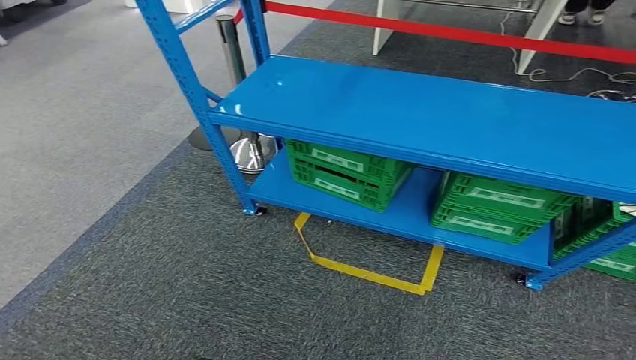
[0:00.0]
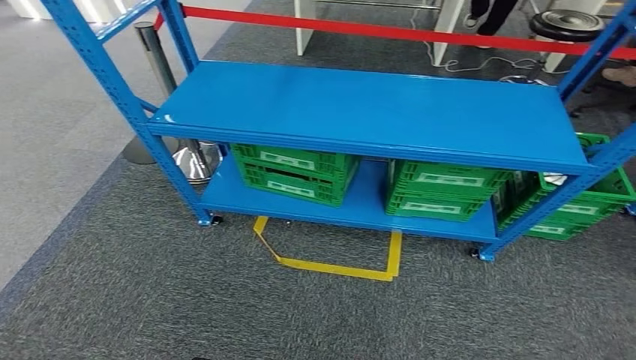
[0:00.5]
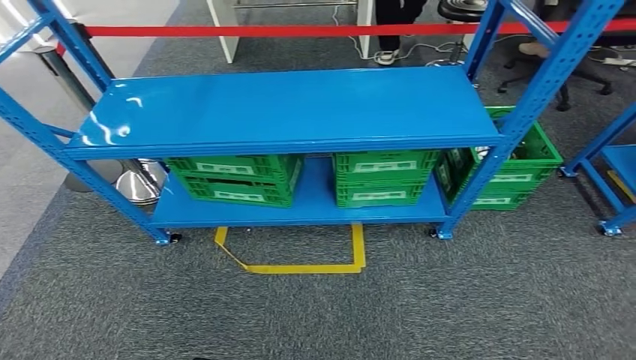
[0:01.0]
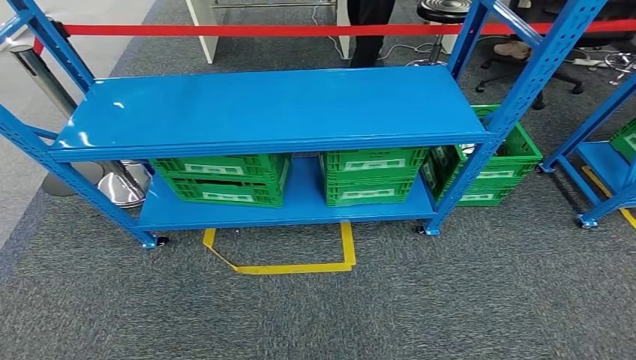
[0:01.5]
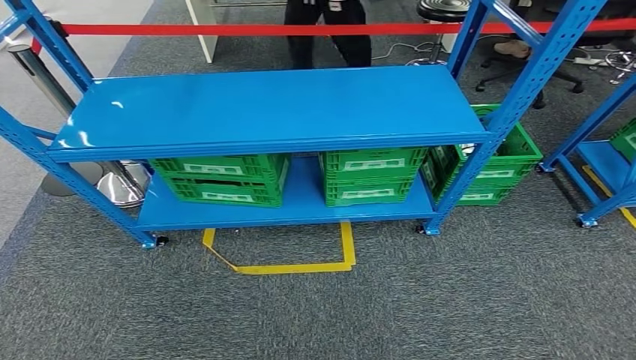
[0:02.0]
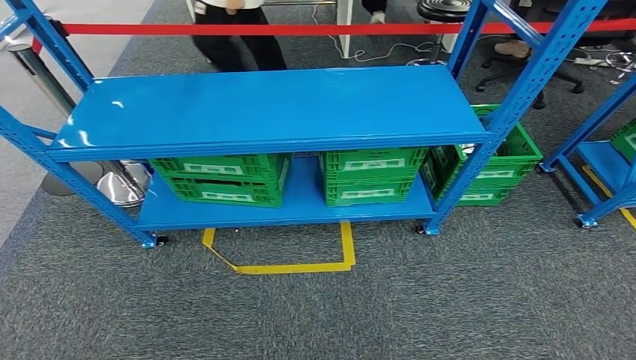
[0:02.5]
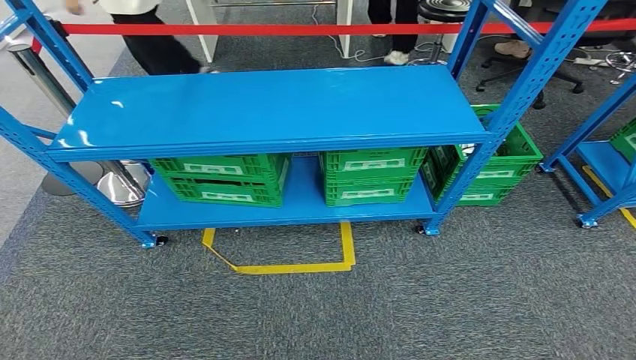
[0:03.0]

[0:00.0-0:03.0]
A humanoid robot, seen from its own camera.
Step, 0:00.0 to 0:03.0: Move to the initial position at the workbench.
0:01.5 to 0:03.0: The right hand travels to the right and backward by about 10 cm. Meanwhile the left hand goes about 5 cm to the left and backward.
